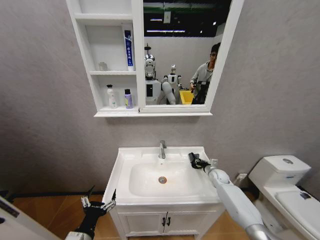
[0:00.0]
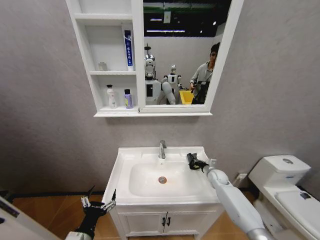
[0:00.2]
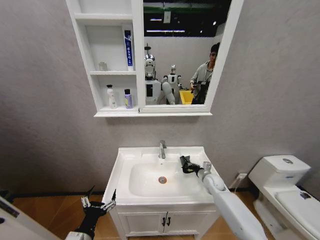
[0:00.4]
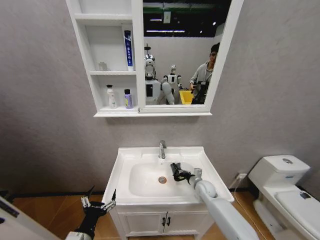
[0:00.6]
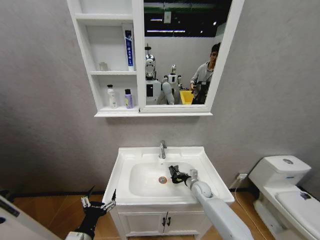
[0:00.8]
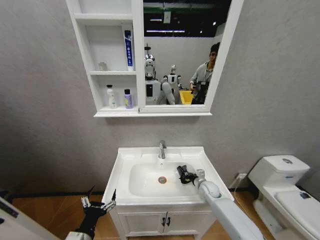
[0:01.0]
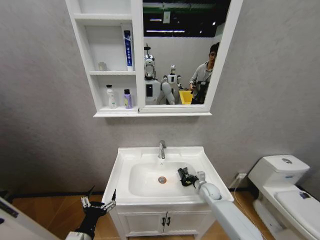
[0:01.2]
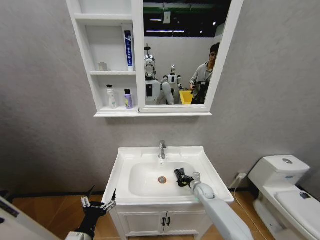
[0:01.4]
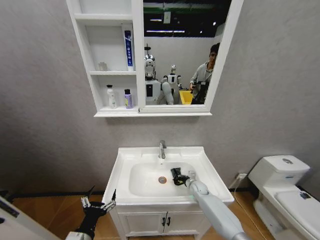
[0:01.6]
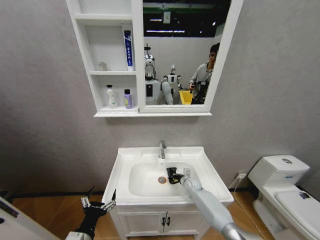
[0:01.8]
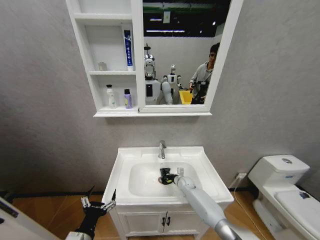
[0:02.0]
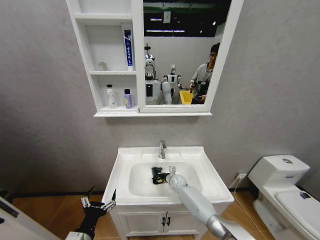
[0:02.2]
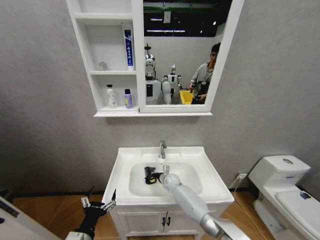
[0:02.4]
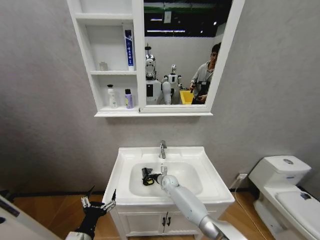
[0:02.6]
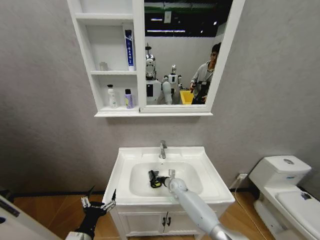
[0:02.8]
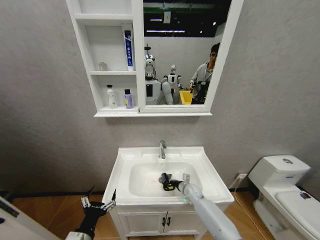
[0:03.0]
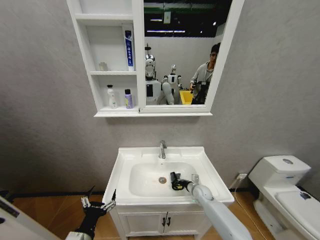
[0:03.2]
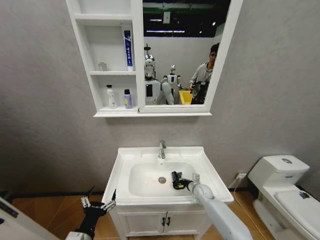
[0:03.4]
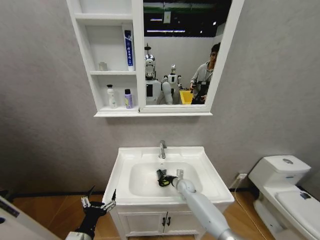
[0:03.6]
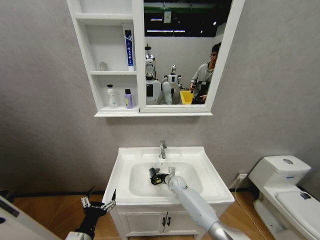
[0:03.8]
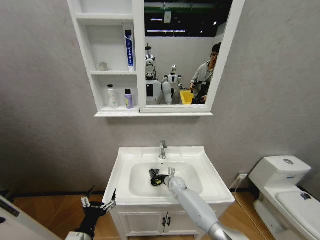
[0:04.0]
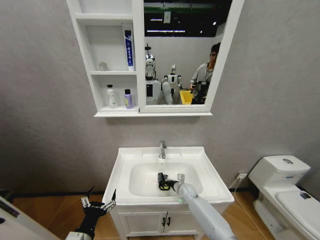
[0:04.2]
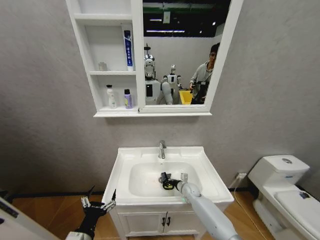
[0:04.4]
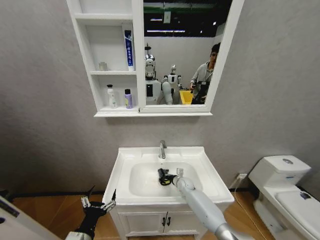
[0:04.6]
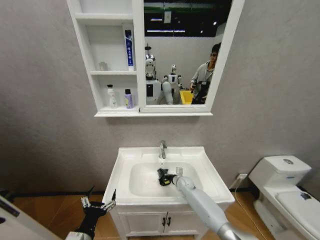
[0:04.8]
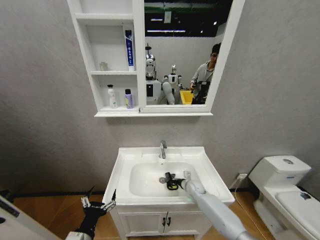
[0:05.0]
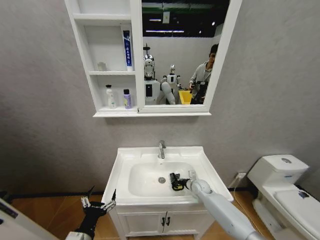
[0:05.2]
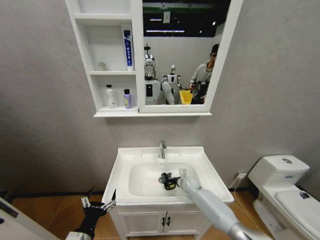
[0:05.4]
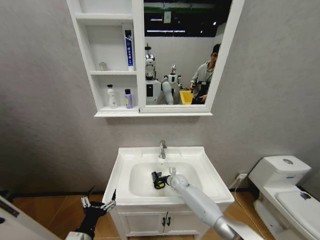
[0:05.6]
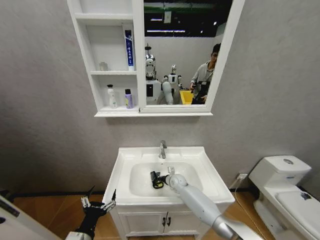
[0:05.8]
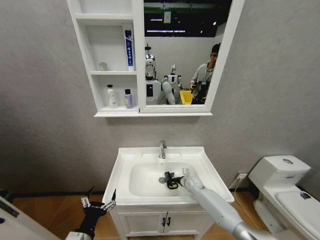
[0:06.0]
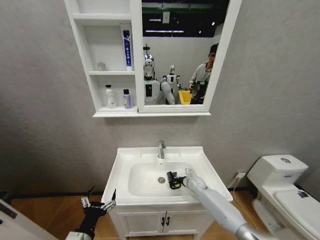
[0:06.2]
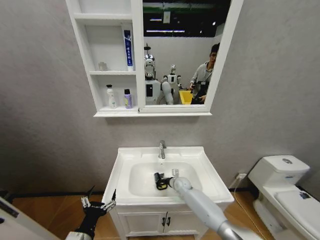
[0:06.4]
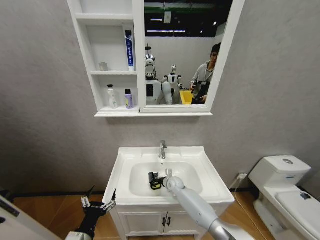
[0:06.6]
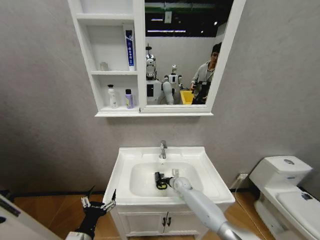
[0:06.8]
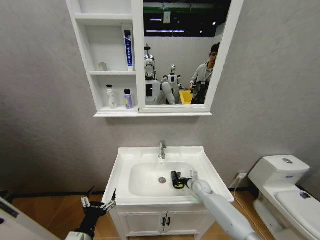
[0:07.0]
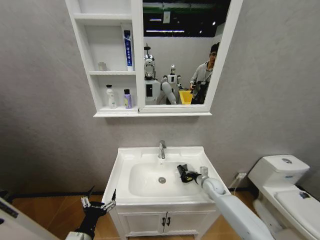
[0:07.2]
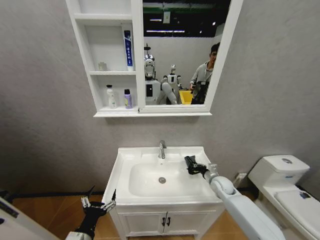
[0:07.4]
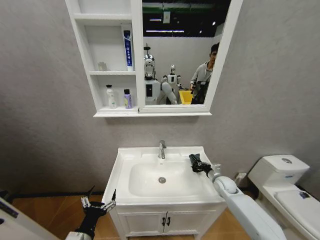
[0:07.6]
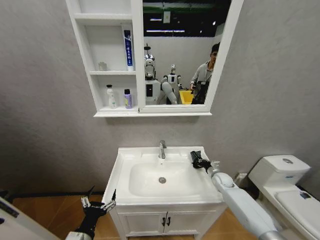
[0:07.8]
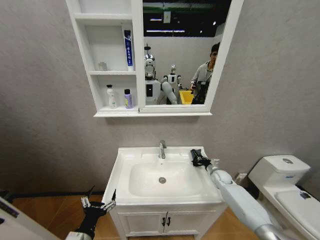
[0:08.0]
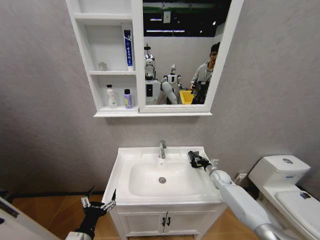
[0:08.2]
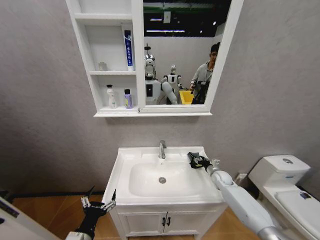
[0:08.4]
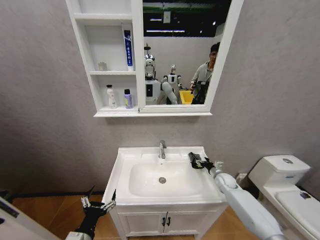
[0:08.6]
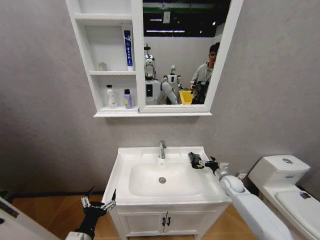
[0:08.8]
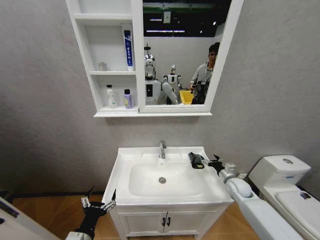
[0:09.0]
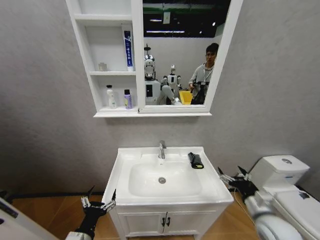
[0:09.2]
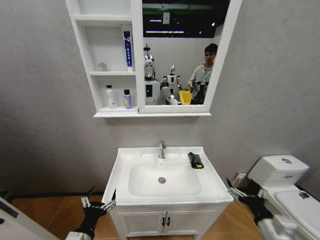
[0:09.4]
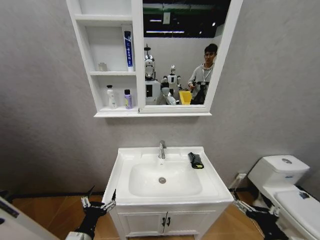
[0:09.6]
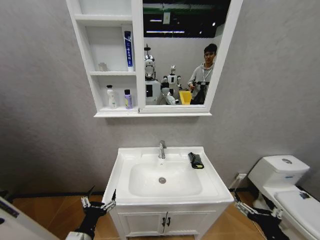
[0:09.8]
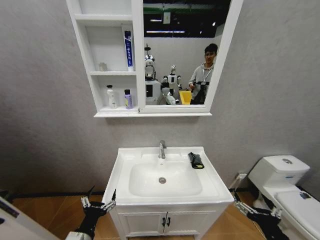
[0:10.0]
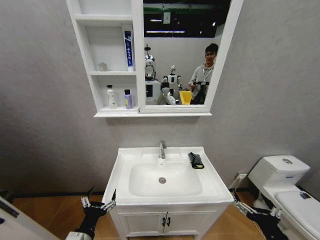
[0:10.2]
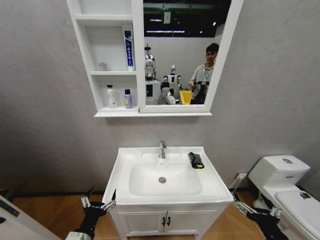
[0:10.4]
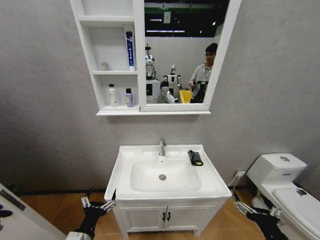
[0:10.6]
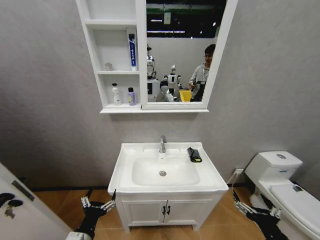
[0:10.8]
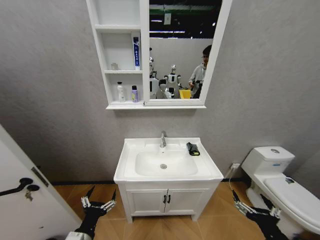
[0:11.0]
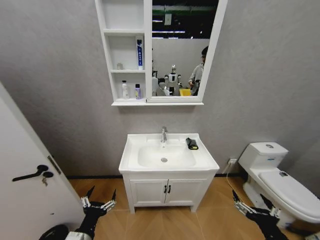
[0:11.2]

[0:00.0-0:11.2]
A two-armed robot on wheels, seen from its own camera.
Task of the whole recording: Move facial cleanser and shampoo from washbasin to cabinet, then wipe washbasin with towel.
0:00.0 to 0:01.6: The right gripper moves to the left and downward, about 15 cm.
0:01.6 to 0:03.2: The right gripper reaches roughly 15 cm to the left, then returns.
0:03.2 to 0:04.8: The right gripper travels to the left and forward by about 10 cm.
0:04.8 to 0:06.4: The right gripper moves left and right over about 10 cm, changing direction 3 times.
0:06.4 to 0:08.0: The right gripper goes some 20 cm to the right.
0:08.0 to 0:09.6: The right gripper moves backward, approximately 40 cm, and opens up.
